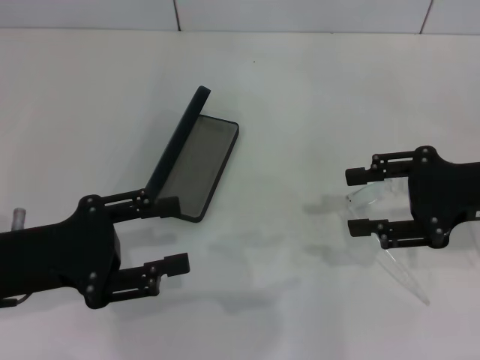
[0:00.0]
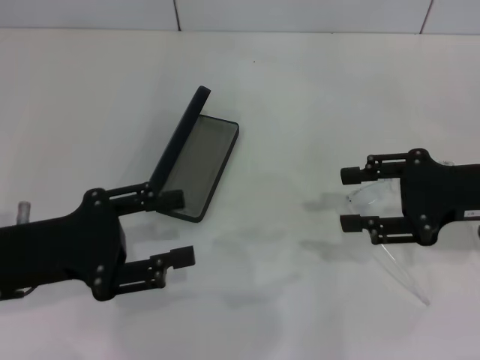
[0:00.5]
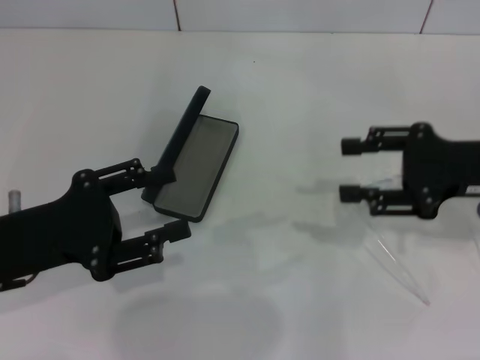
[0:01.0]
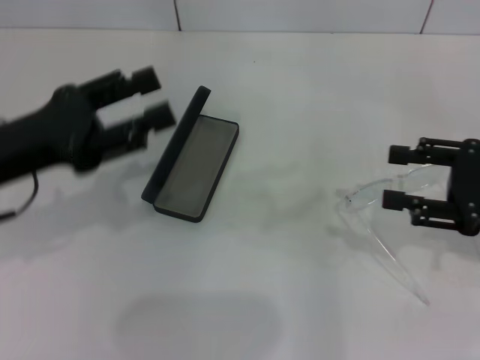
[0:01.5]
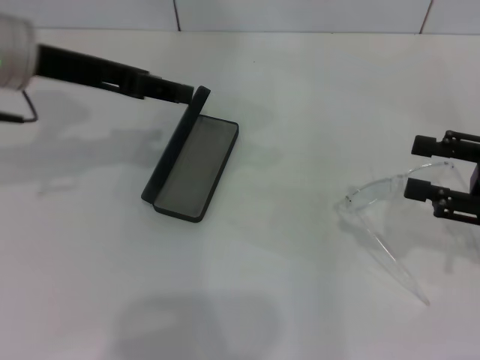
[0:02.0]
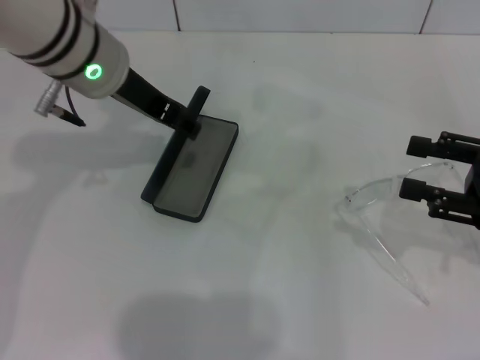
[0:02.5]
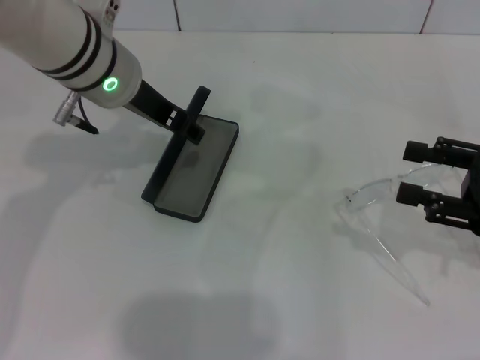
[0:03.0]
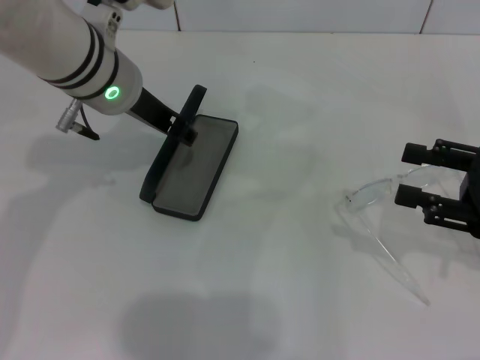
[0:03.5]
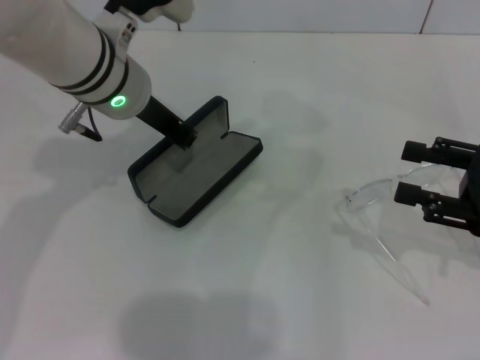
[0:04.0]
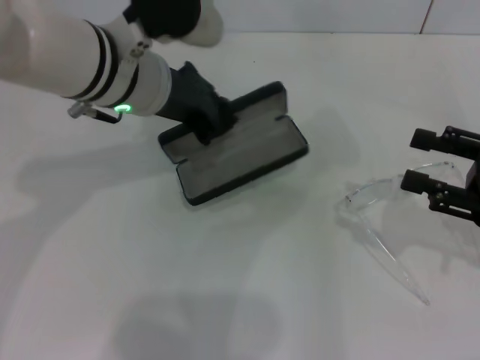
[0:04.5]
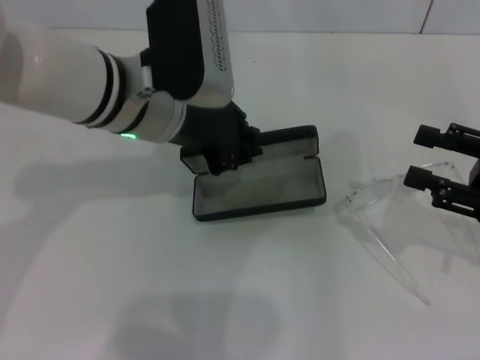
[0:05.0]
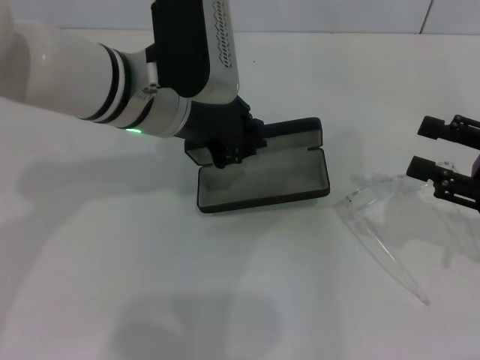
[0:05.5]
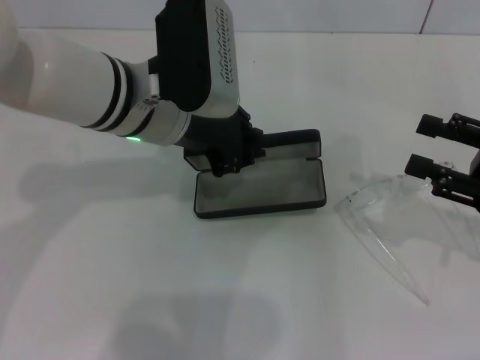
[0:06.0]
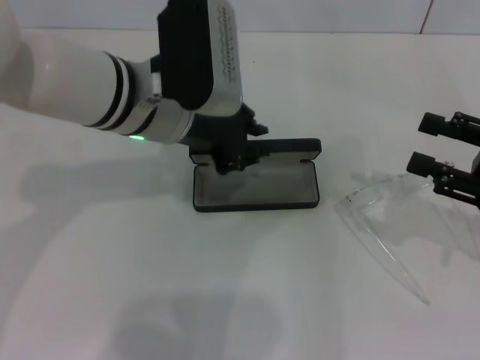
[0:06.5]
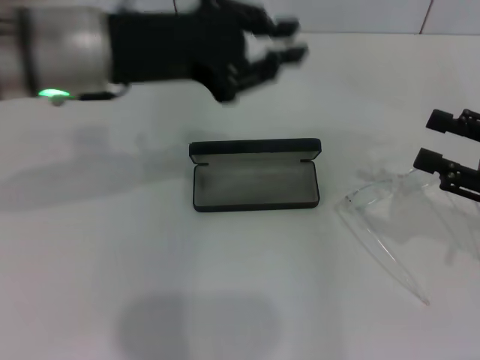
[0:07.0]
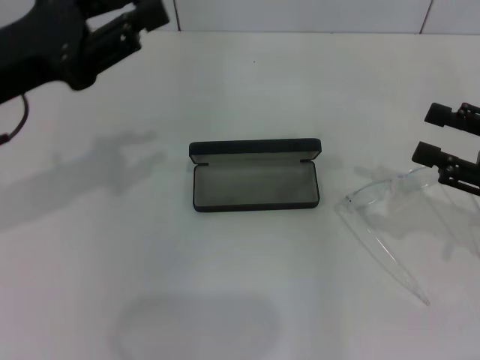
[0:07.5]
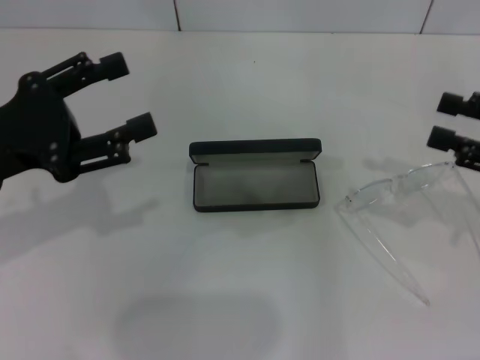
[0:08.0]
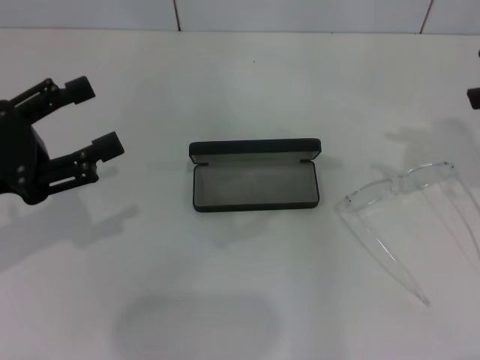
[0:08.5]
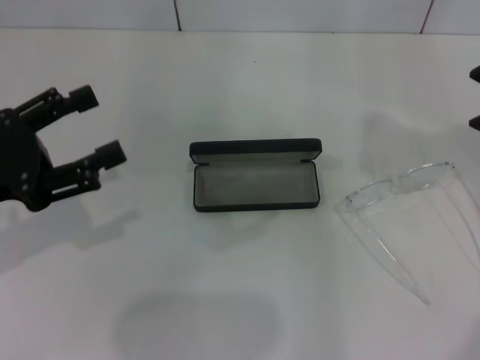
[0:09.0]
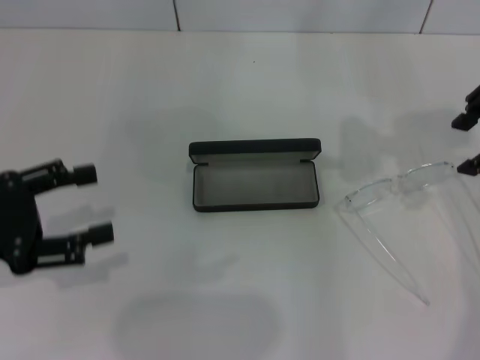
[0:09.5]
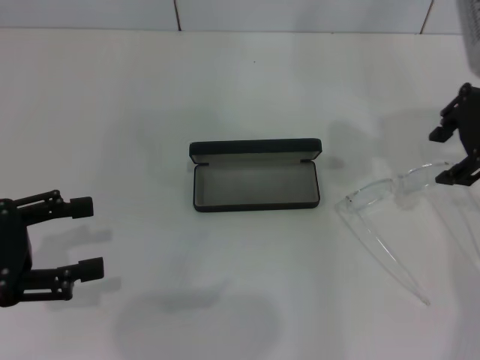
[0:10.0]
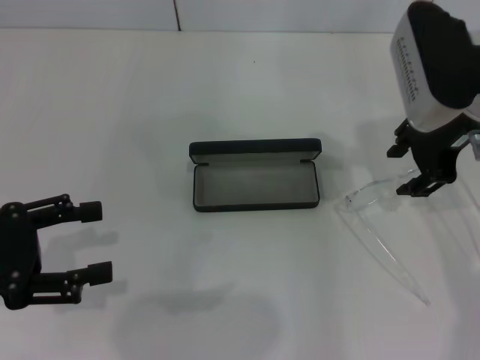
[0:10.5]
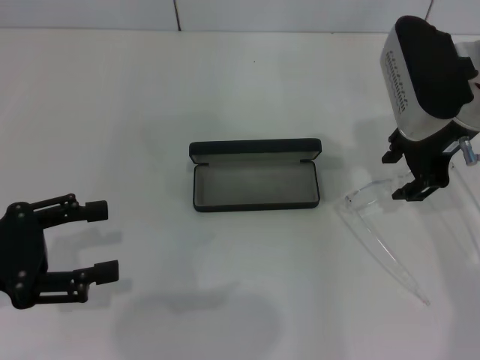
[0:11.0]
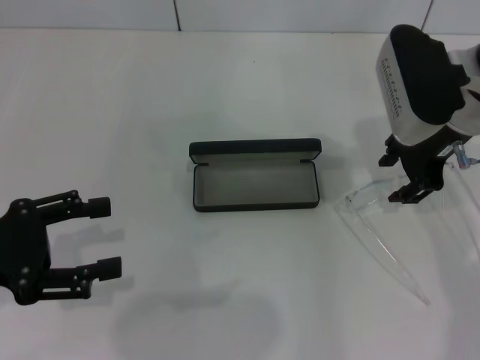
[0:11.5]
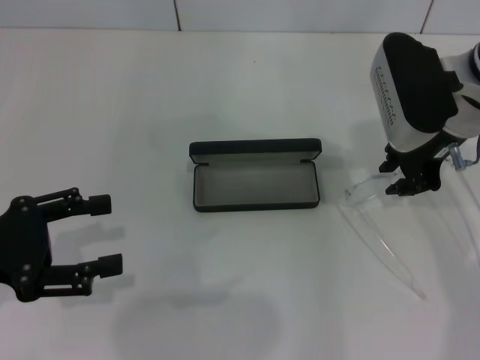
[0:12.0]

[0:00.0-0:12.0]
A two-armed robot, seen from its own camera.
Step, 0:00.0 to 0:03.5: Grab the glasses case with your left hand.
Step, 0:04.5 to 0:06.0: Place the glasses case in the center of the table with your left hand.
Step, 0:06.5 to 0:12.0: Grab the eyeglass frame with your right hand.
0:00.0 to 0:02.0: The right gripper shifts some 5 cm to the right, while the left gripper goes about 20 cm forward and upward.
0:02.0 to 0:04.0: The left gripper travels to the right and downward by roughly 10 cm, and closes up.
0:06.0 to 0:08.0: The left gripper is displaced to the left and backward by some 20 cm, and opens up.
0:08.0 to 0:10.0: The right gripper moves to the left, upward and forward, roughly 20 cm. The left gripper changes place by approximately 5 cm.
0:10.0 to 0:12.0: The right gripper shifts some 10 cm downward.

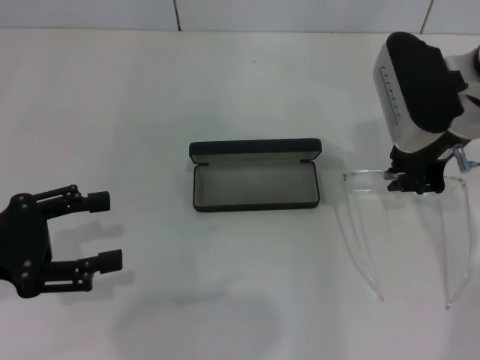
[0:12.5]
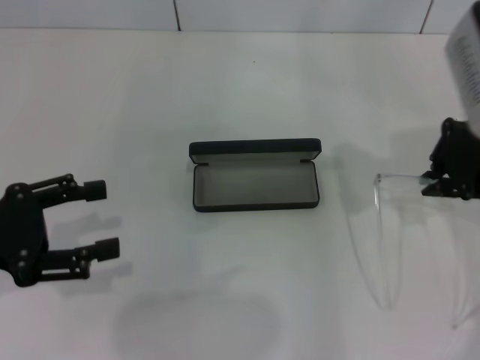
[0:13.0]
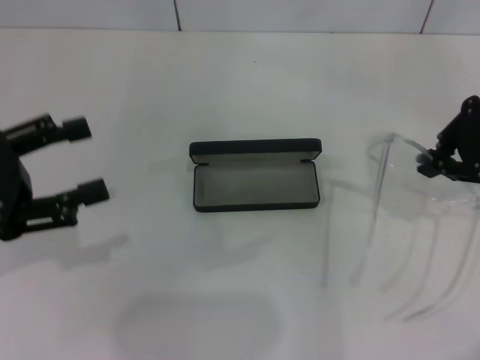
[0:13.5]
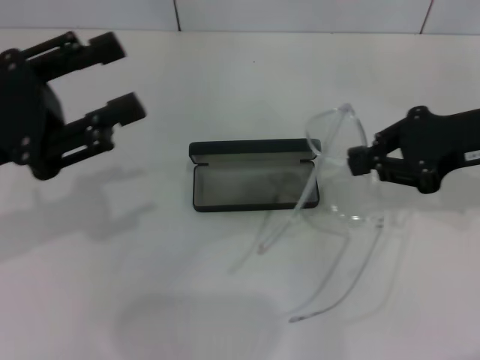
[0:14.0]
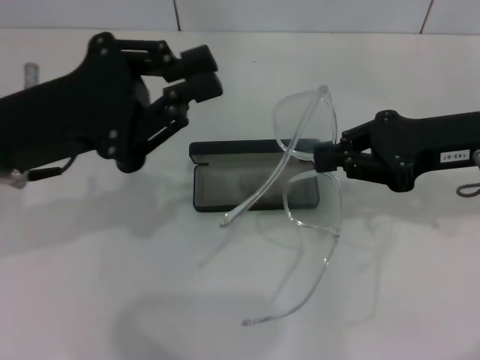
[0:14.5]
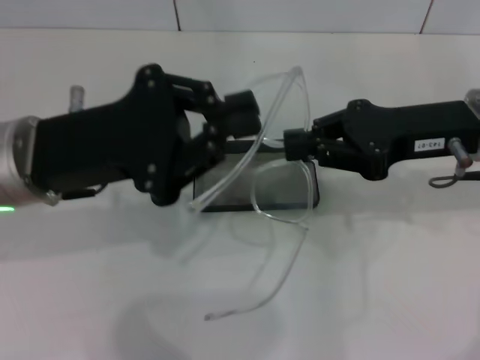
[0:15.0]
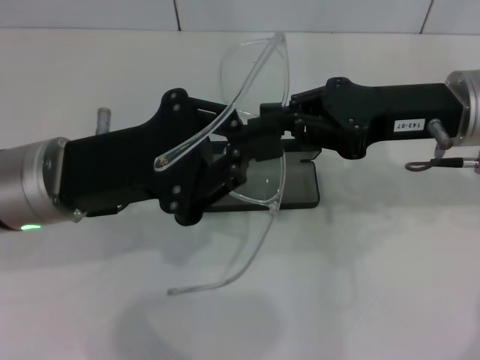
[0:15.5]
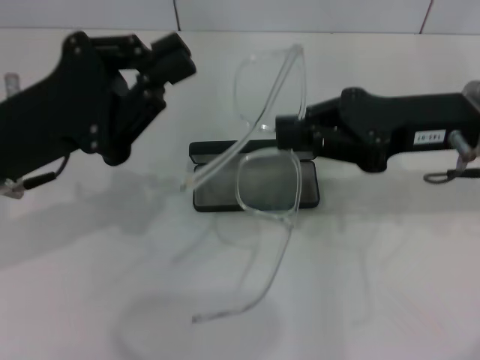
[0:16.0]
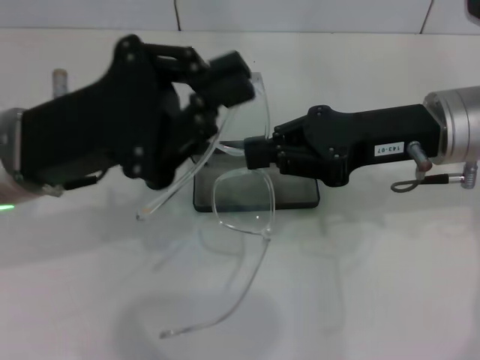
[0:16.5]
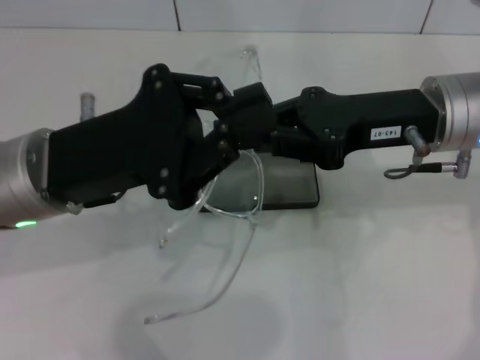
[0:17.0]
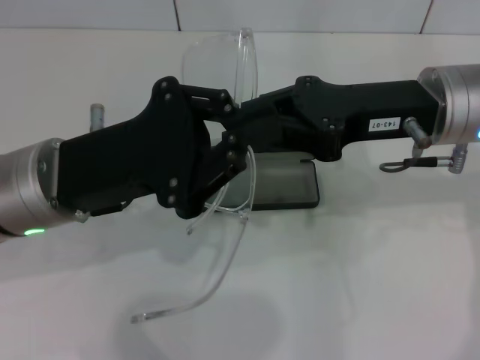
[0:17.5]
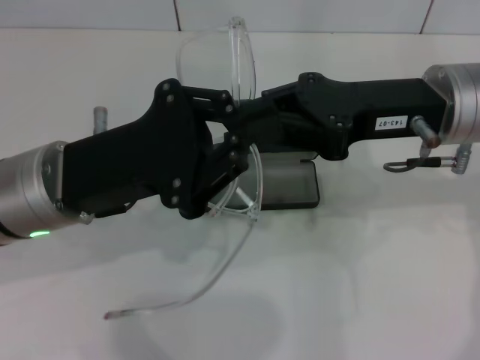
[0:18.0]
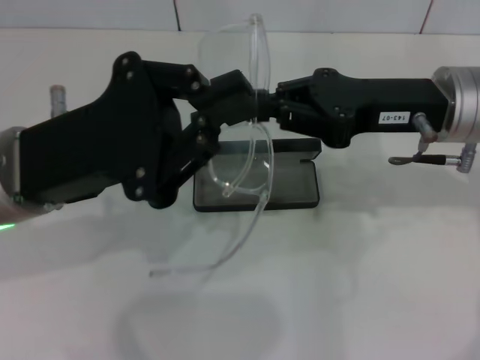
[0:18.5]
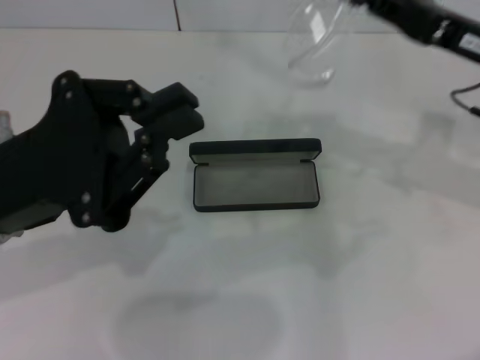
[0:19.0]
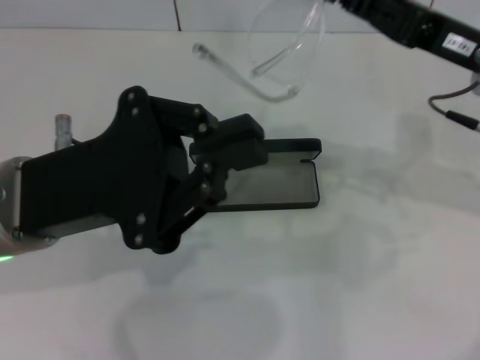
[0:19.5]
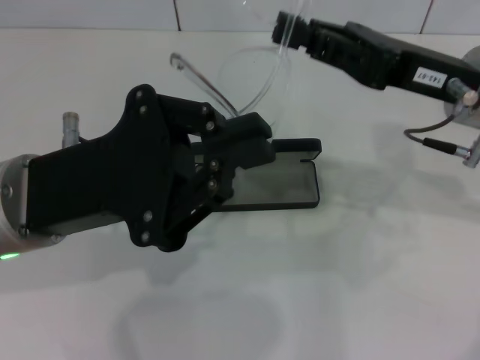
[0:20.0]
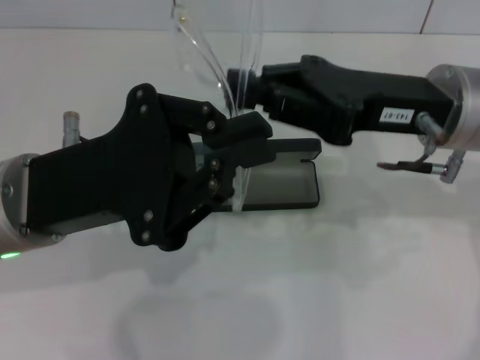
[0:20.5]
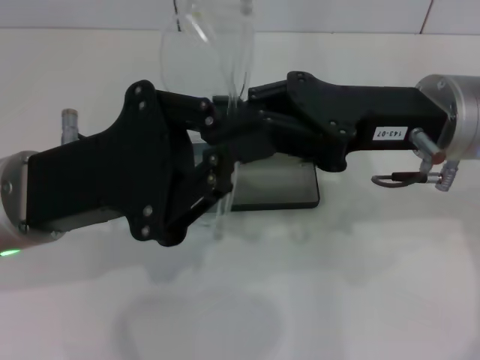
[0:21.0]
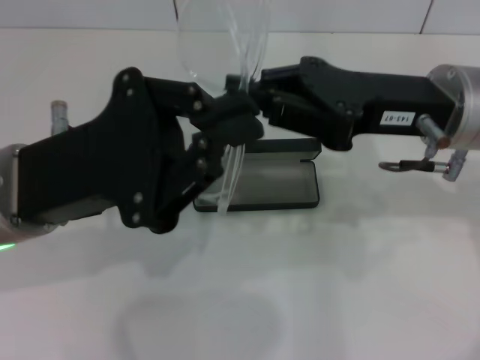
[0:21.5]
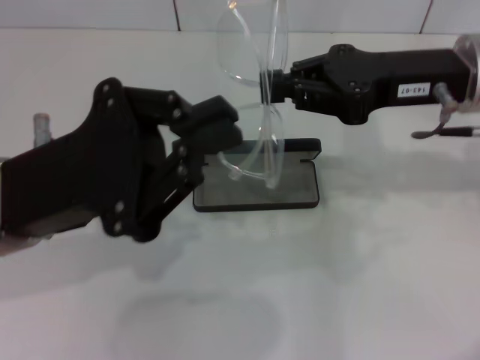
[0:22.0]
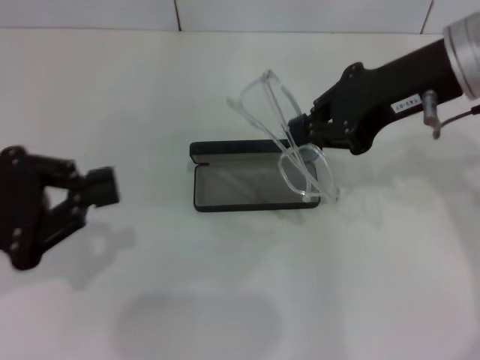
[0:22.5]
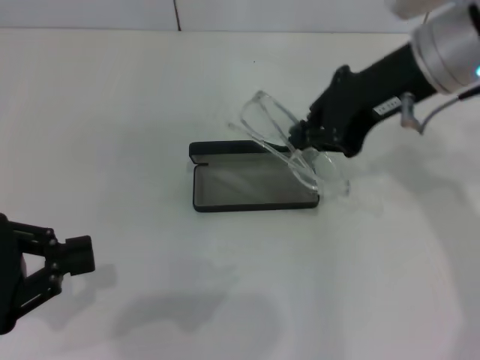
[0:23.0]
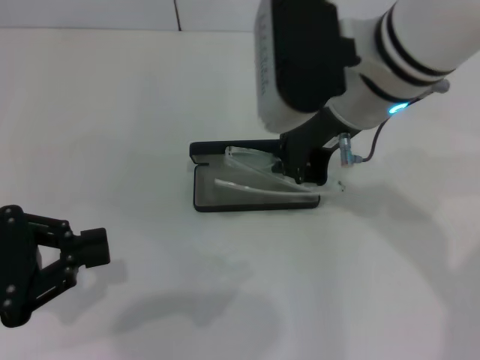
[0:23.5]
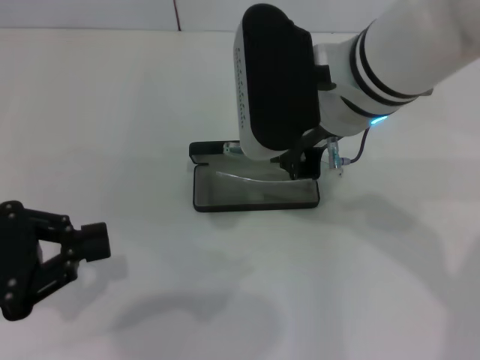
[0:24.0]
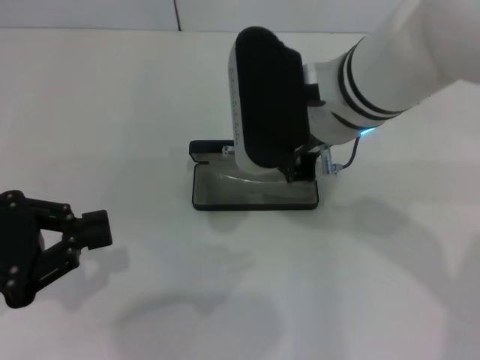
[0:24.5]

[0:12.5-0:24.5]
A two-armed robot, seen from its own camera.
Step, 0:12.5 to 0:21.5: Fold the frame with your left hand.
0:12.5 to 0:14.5: The right gripper heads to the right and backward, covering some 10 cm. Meanwhile the left gripper travels to the right and forward by approximately 10 cm, and closes its fingers.
0:14.5 to 0:16.5: The right gripper heads to the left, covering some 5 cm.
0:18.5 to 0:20.5: The right gripper goes to the right and returns, approximately 5 cm each way.
0:20.5 to 0:22.5: The right gripper is displaced upward by approximately 5 cm. Meanwhile the left gripper shifts about 10 cm to the left.
0:22.5 to 0:24.5: The right gripper moves to the left, about 10 cm.

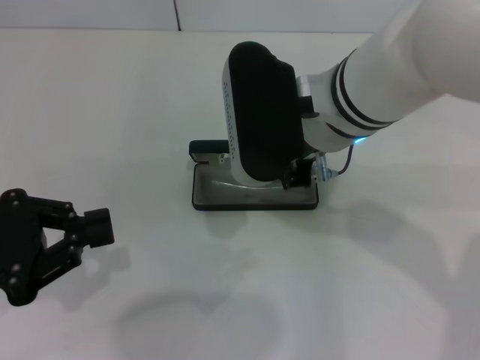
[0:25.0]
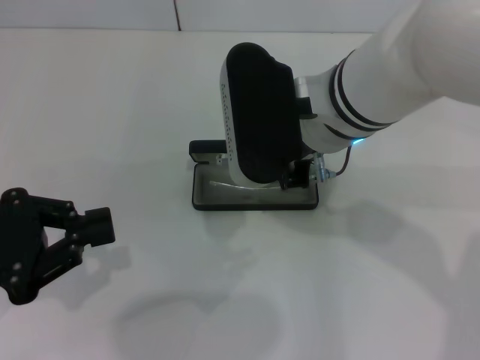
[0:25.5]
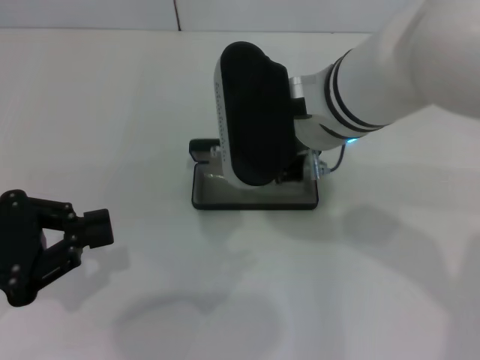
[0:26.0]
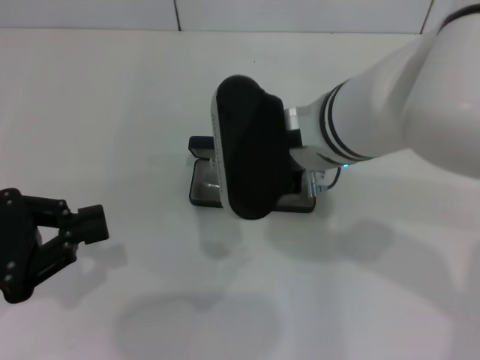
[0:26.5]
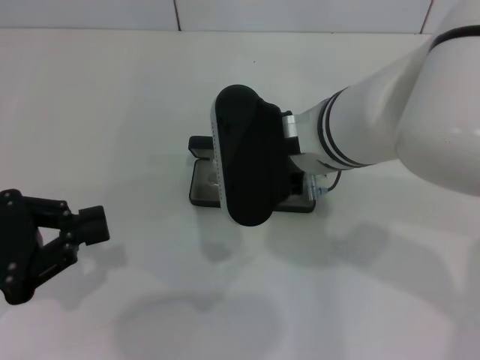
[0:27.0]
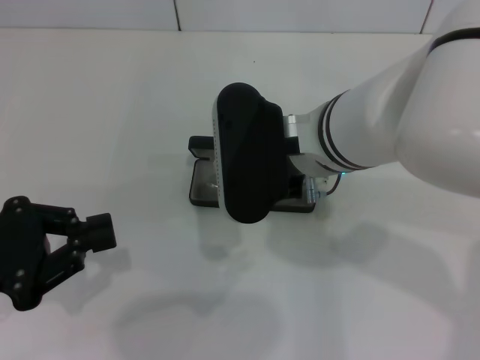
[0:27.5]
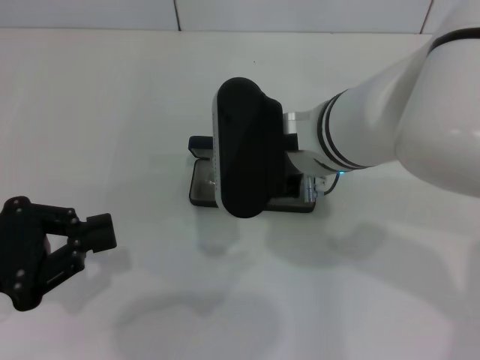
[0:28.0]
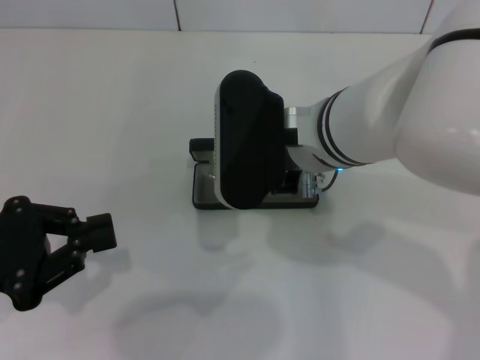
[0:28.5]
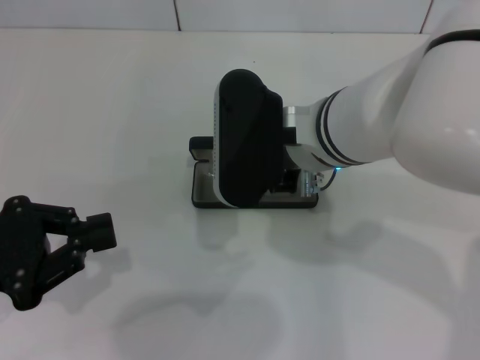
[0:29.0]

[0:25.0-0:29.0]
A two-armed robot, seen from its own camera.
0:25.0 to 0:29.0: There are only small adjustments of the grippers.
